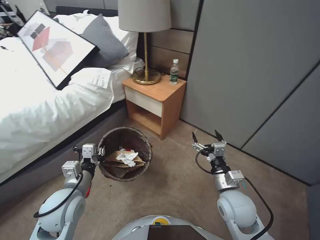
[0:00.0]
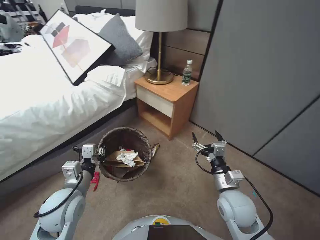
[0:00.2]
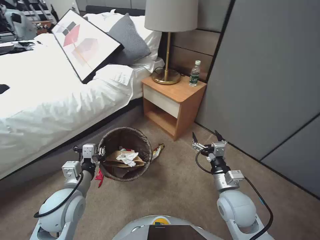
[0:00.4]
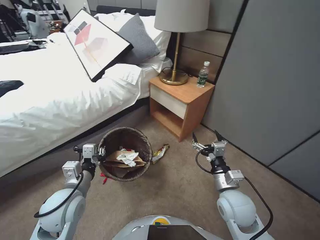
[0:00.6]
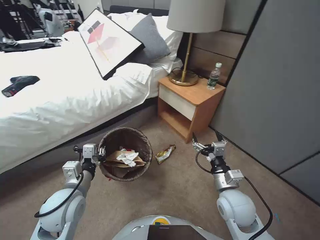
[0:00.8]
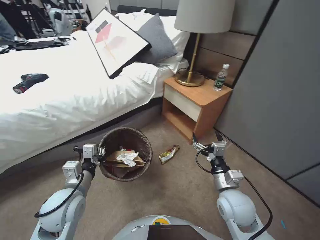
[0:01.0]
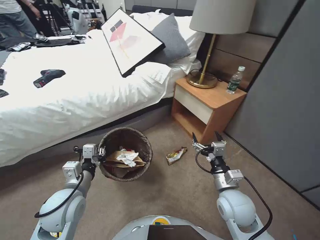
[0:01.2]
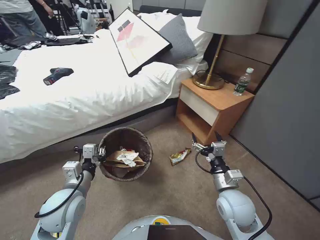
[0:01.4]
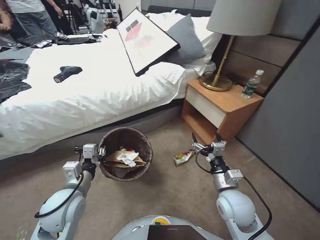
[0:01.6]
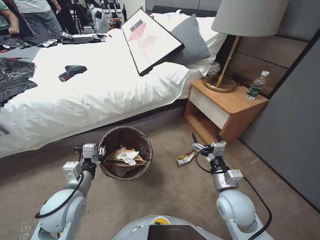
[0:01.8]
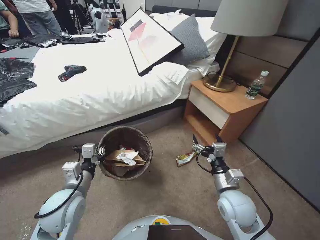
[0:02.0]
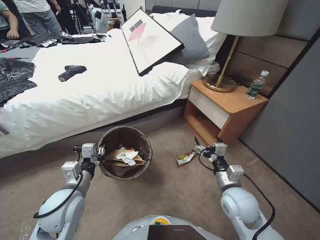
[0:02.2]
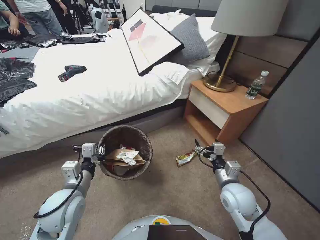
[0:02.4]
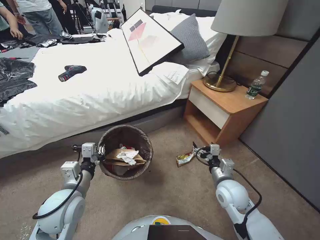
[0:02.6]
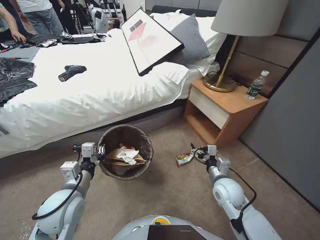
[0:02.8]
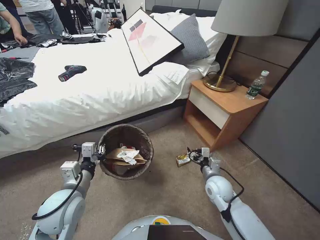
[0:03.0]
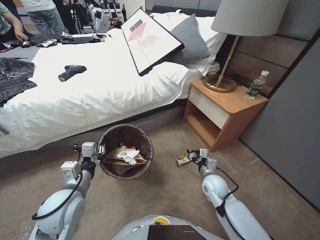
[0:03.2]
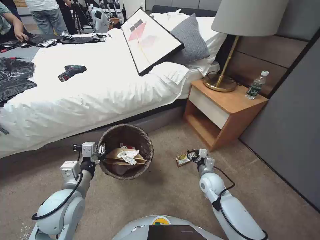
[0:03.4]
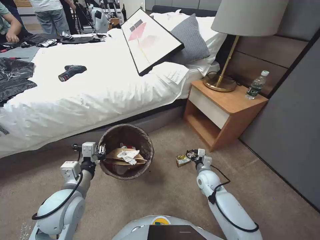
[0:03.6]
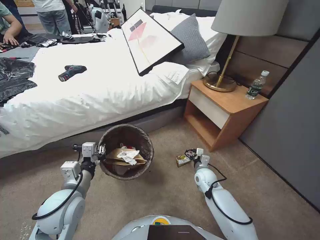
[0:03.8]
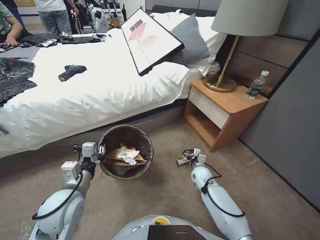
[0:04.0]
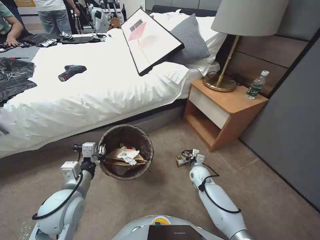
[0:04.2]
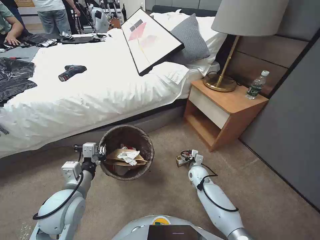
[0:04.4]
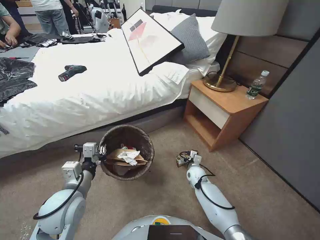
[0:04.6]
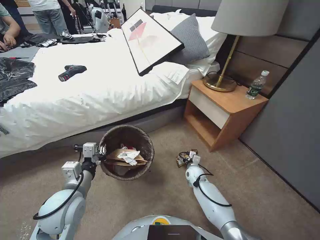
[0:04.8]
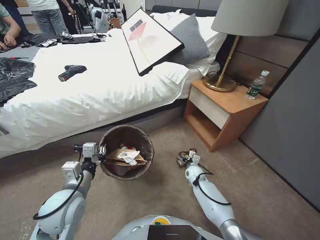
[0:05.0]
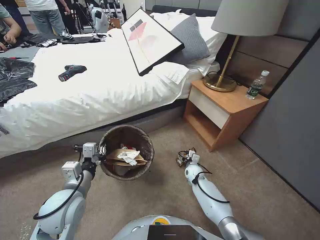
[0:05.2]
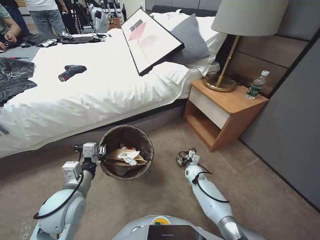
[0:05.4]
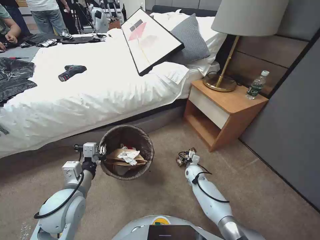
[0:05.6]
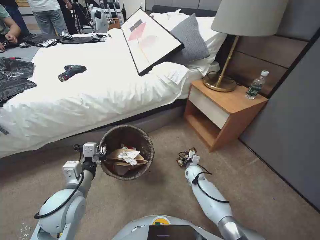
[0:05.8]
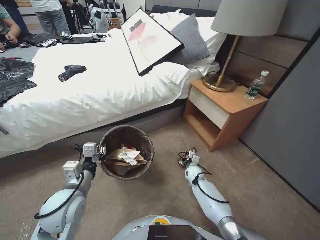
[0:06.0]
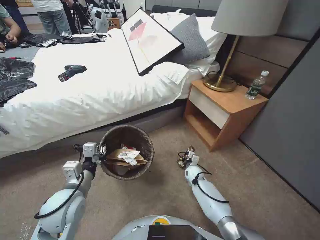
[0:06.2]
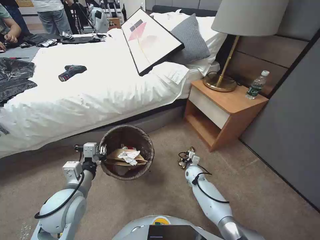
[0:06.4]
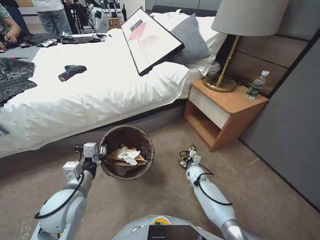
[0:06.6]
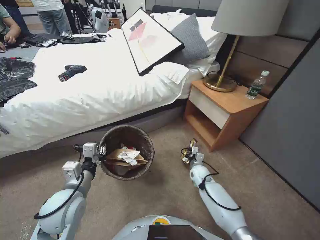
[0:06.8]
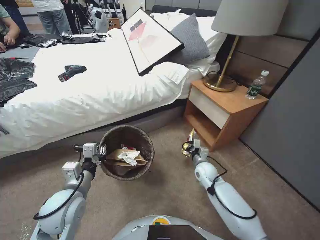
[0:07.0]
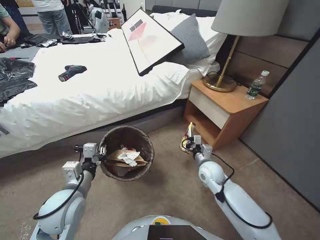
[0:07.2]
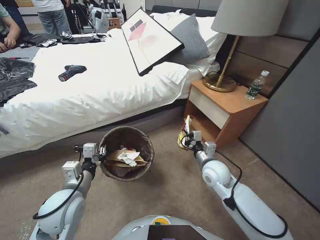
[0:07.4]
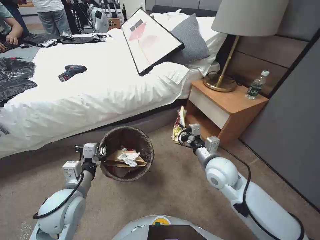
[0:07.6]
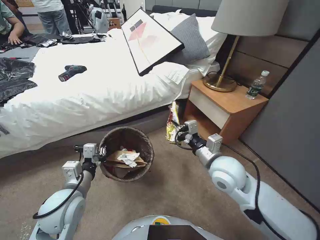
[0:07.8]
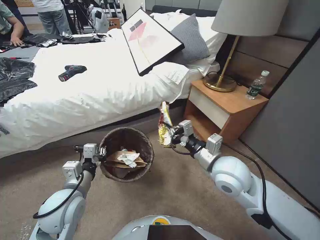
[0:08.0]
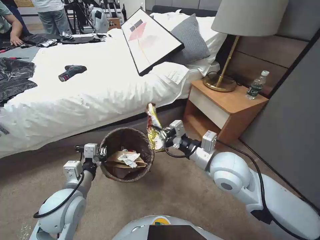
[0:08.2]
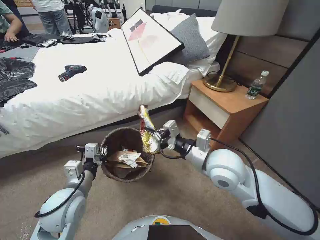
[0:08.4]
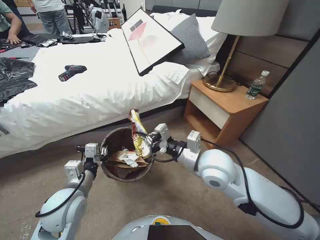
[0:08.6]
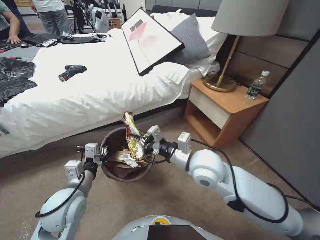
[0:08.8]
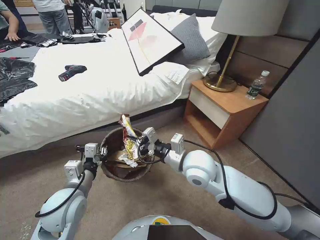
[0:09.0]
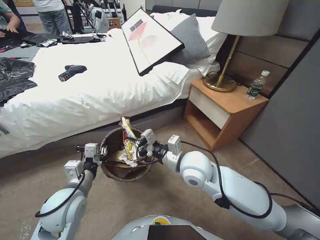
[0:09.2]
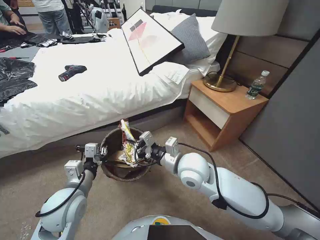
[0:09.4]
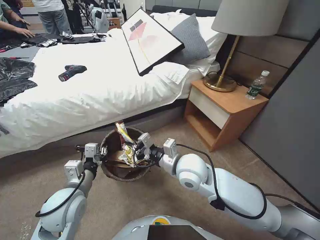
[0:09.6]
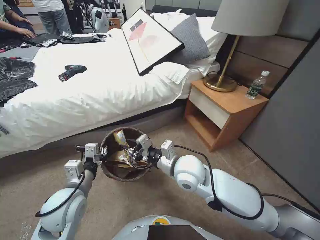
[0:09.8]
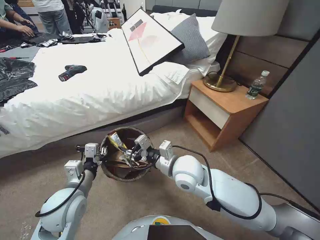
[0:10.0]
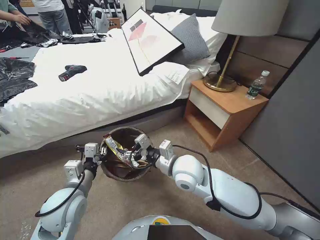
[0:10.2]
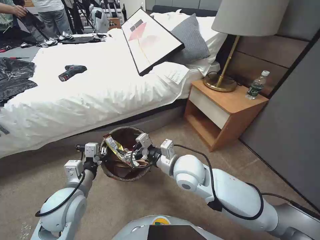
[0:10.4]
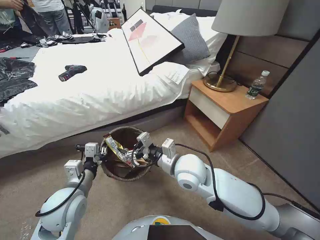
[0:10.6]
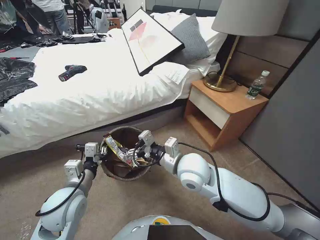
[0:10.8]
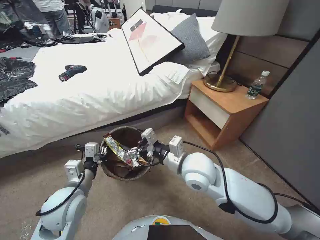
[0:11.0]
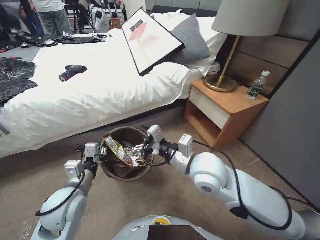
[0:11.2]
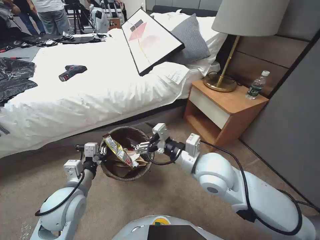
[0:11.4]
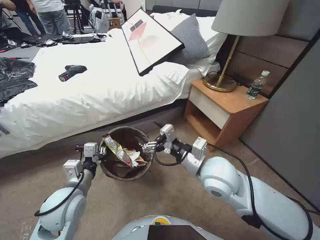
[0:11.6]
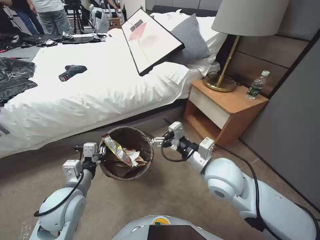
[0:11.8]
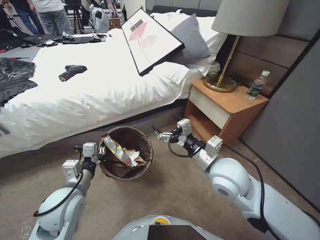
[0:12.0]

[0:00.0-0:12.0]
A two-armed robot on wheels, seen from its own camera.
Task of the whole recording: Pick up the trash bin, then pick up the garbage from the floor and place it into the trash bin.
0:01.6 to 0:03.0: The right gripper goes about 10 cm downward and forward.
0:03.0 to 0:04.4: The right gripper heads downward and forward, covering some 15 cm.
0:04.4 to 0:06.0: The right gripper changes place by roughly 5 cm, and closes up.
0:06.0 to 0:07.6: The right gripper goes some 25 cm upward, and closes.
0:07.6 to 0:09.0: The right gripper heads to the left and upward, covering approximately 15 cm.
0:09.0 to 0:10.4: The right gripper opens up.
0:10.4 to 0:12.0: The right gripper heads to the right, covering some 10 cm.

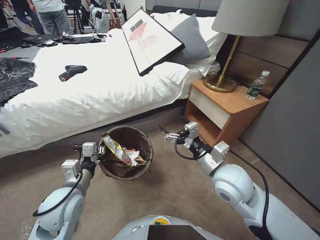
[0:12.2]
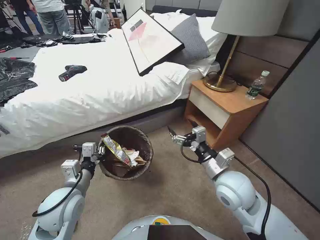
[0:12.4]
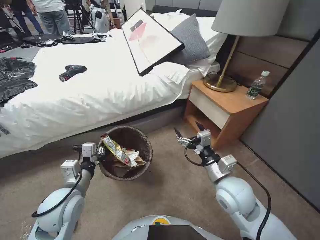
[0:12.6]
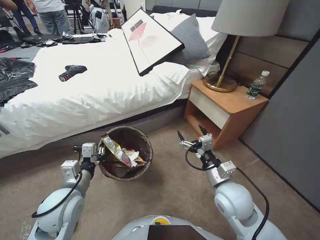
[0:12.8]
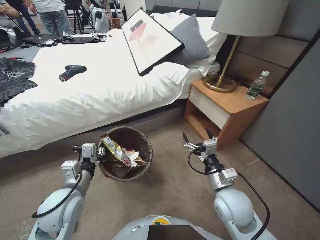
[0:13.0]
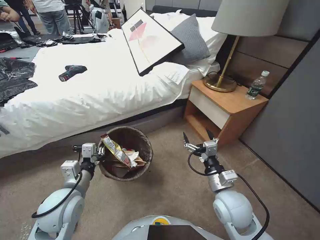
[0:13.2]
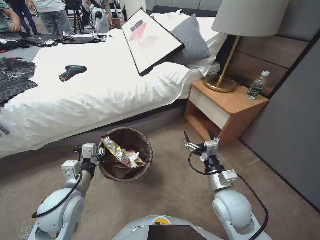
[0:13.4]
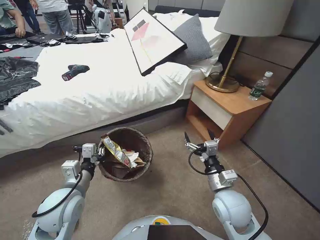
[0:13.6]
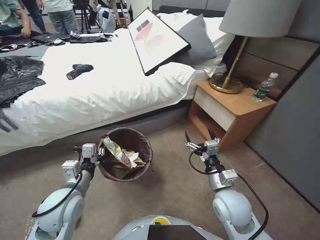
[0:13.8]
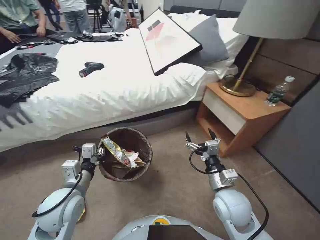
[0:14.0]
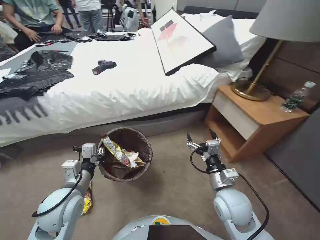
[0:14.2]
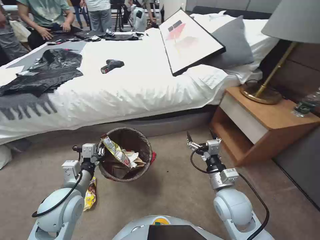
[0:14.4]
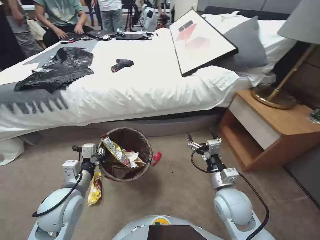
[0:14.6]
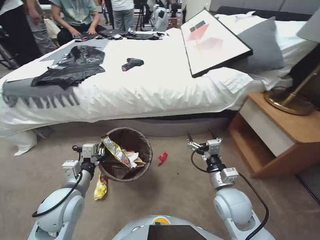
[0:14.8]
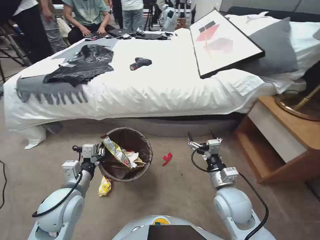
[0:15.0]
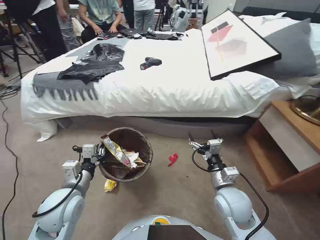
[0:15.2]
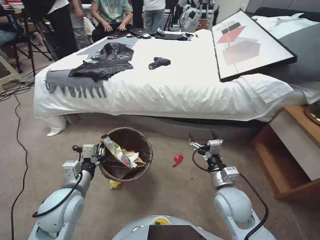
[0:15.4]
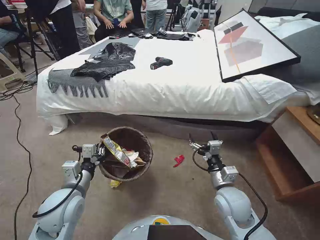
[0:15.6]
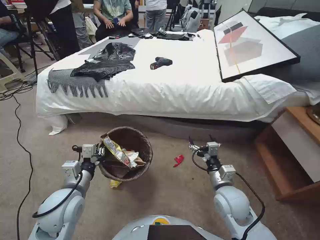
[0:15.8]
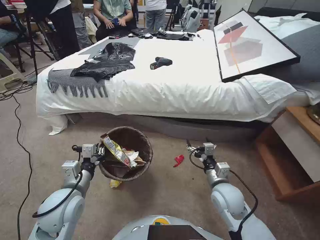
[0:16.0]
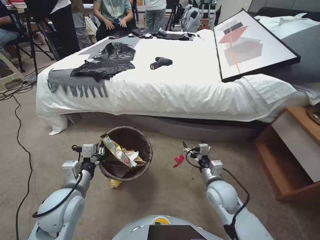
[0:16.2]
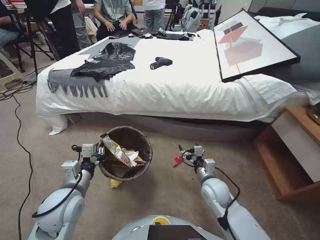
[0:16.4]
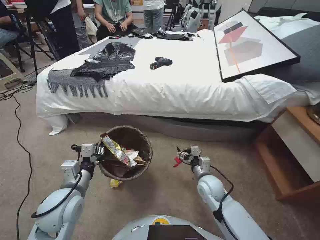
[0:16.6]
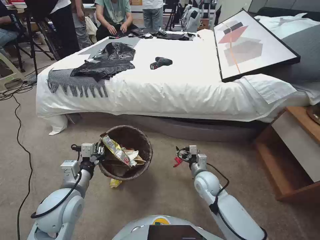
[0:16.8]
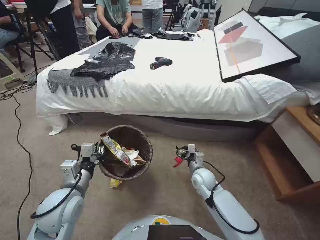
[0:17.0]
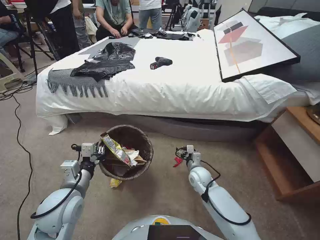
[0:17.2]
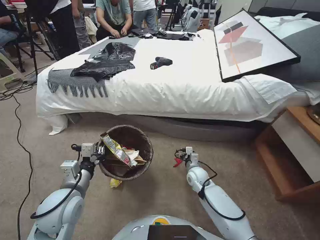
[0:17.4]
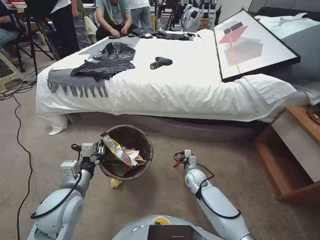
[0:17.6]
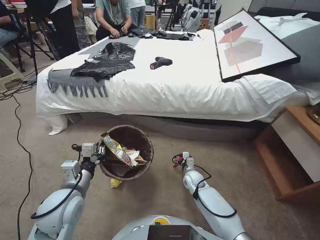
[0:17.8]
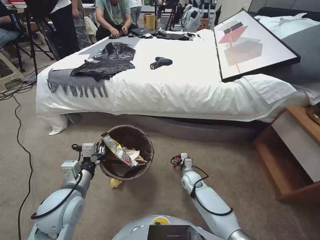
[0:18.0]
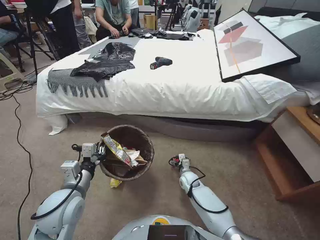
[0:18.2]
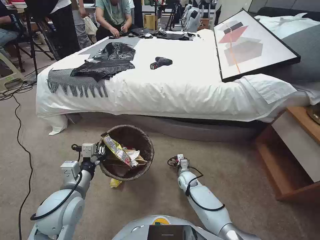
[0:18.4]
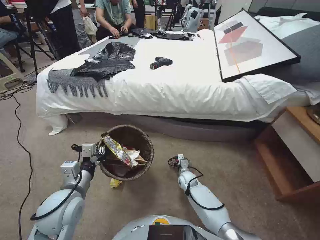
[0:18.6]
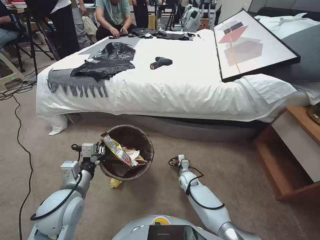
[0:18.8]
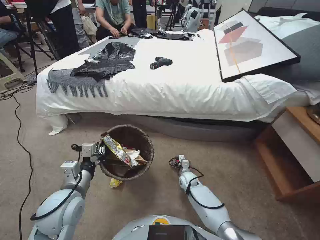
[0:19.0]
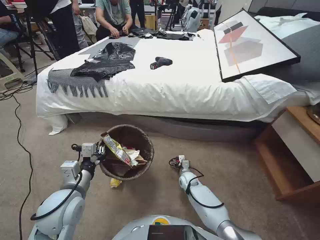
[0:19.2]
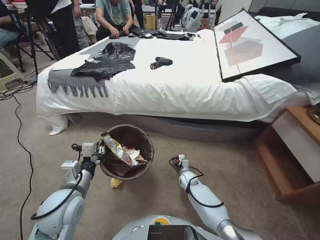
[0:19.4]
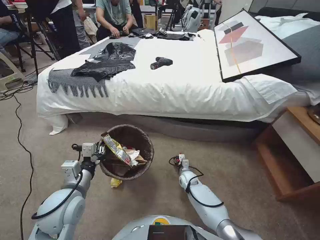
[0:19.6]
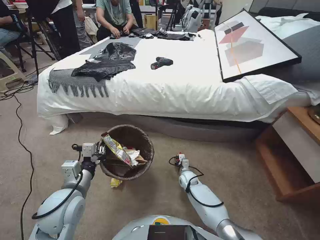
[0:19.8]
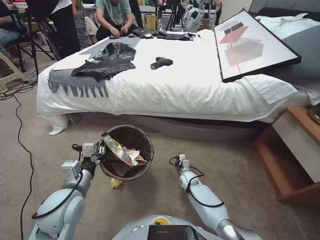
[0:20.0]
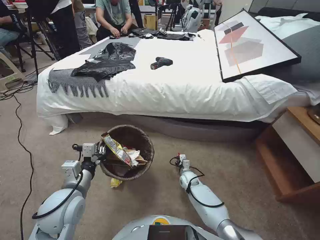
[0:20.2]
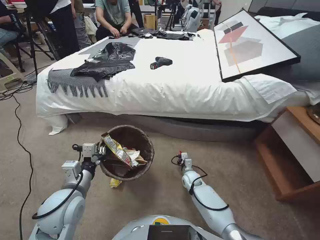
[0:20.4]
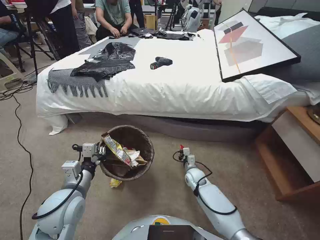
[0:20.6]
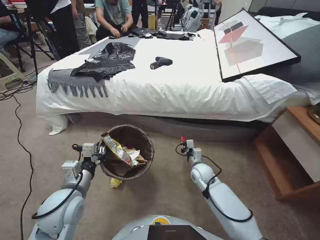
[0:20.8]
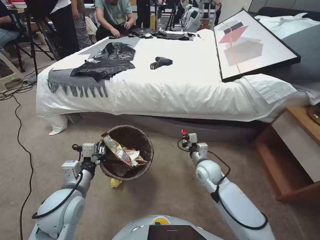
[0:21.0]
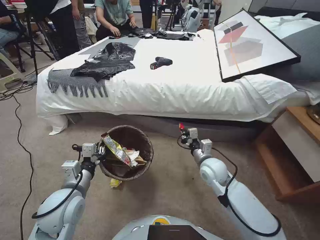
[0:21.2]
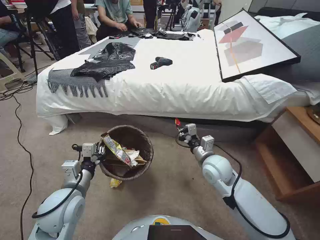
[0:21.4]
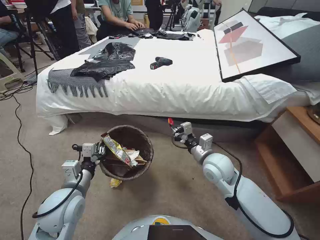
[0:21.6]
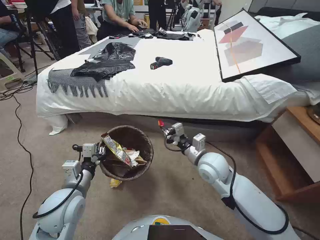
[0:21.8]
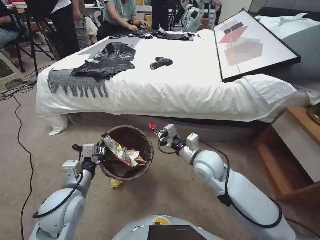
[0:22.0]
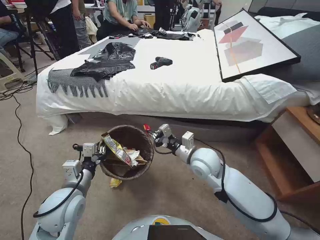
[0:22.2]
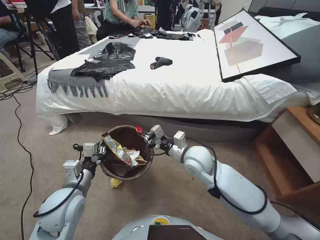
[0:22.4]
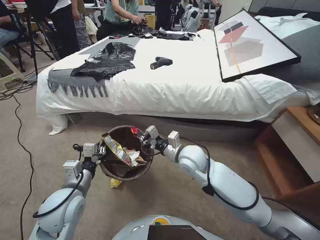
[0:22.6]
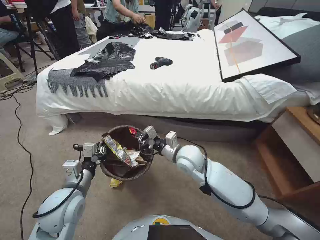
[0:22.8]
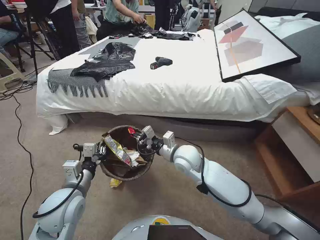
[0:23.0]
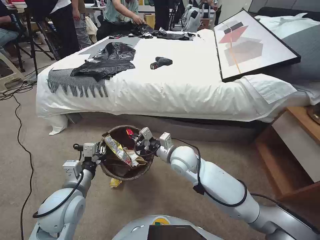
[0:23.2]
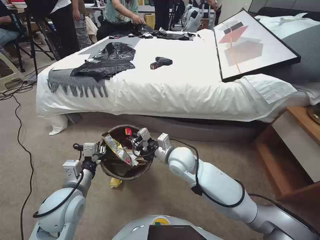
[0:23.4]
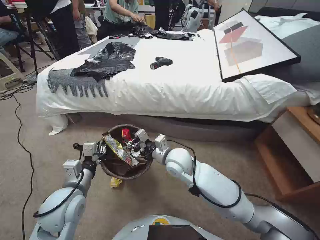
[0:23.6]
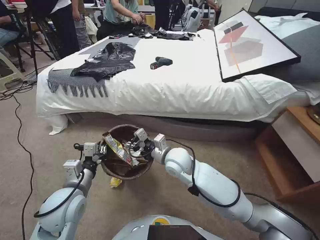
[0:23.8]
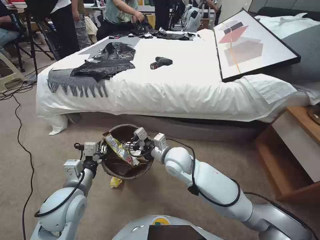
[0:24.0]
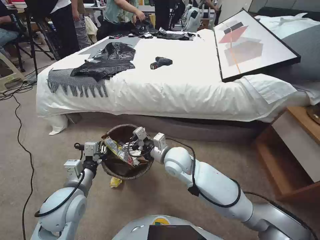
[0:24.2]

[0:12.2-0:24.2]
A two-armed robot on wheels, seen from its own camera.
Task of the whole recording: Pick up the trash bin, then pick up the garbage from the floor and place it into the trash bin.
0:12.2 to 0:13.8: The right gripper heads downward, covering about 10 cm.
0:15.2 to 0:16.6: The right gripper shifts some 10 cm downward and forward.
0:16.6 to 0:18.2: The right gripper goes some 15 cm downward and forward.
0:18.2 to 0:19.8: The right gripper closes.
0:19.8 to 0:21.2: The right gripper heads upward, covering roughly 20 cm, and closes.
0:21.2 to 0:22.6: The right gripper heads upward and to the left, covering approximately 15 cm.
0:22.6 to 0:24.2: The right gripper is displaced to the left by approximately 5 cm, and opens.
